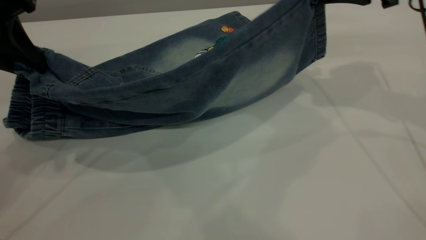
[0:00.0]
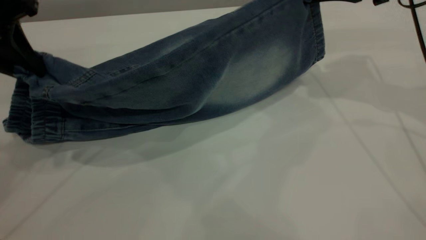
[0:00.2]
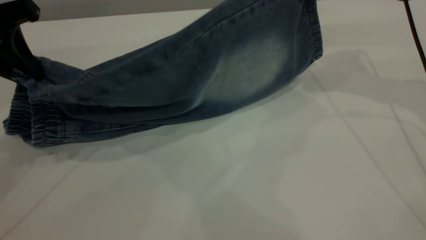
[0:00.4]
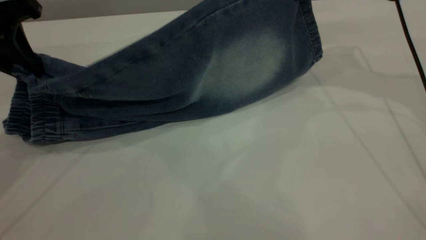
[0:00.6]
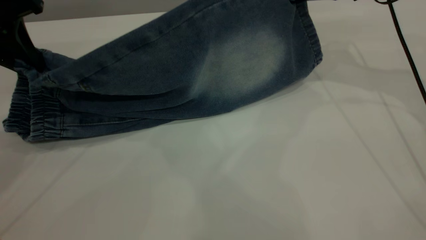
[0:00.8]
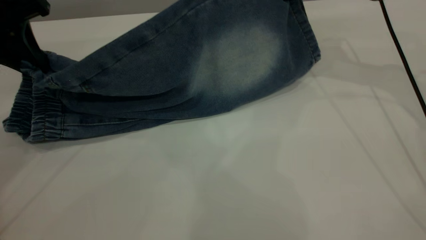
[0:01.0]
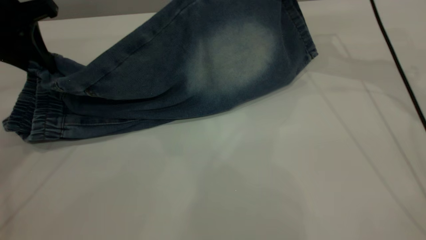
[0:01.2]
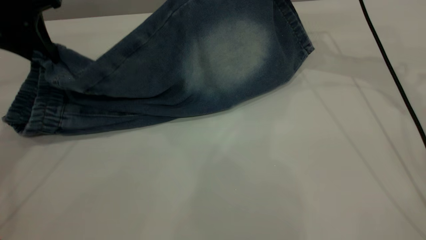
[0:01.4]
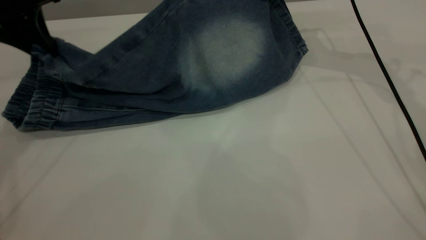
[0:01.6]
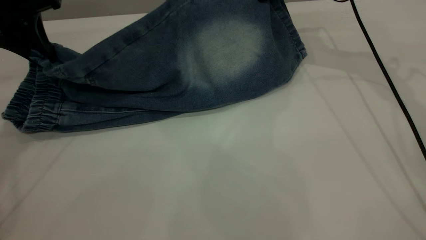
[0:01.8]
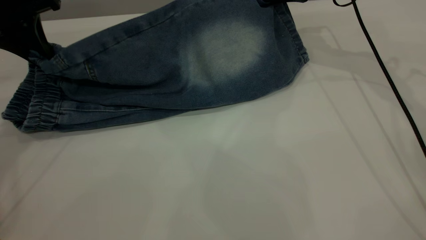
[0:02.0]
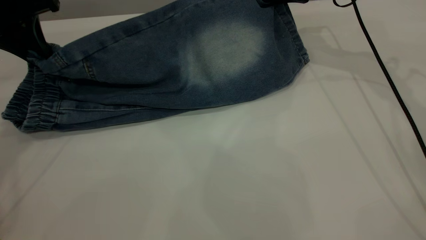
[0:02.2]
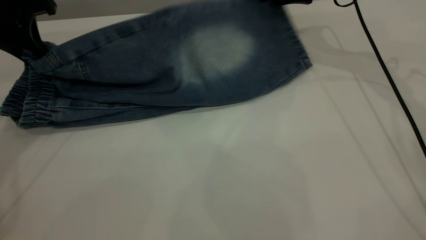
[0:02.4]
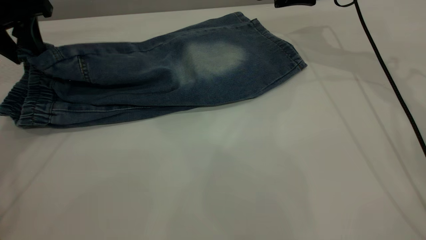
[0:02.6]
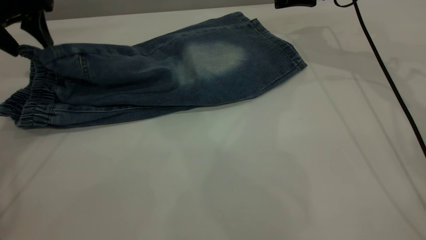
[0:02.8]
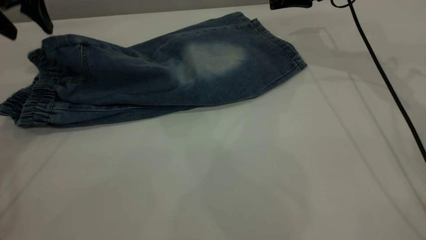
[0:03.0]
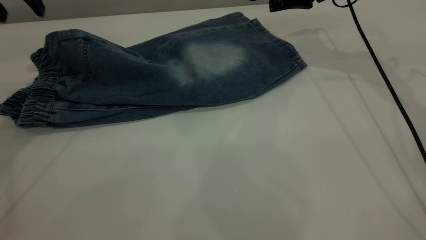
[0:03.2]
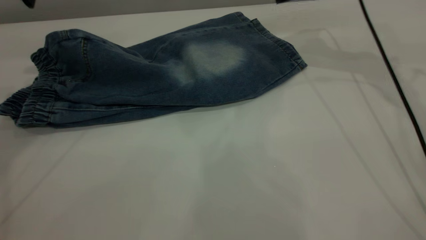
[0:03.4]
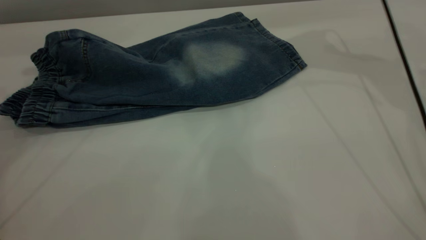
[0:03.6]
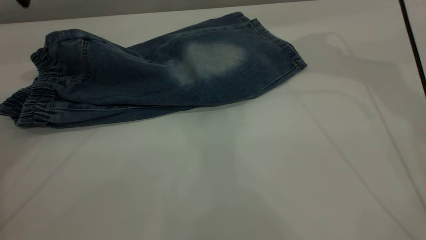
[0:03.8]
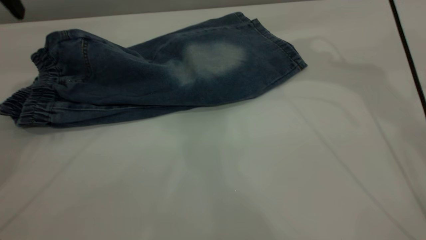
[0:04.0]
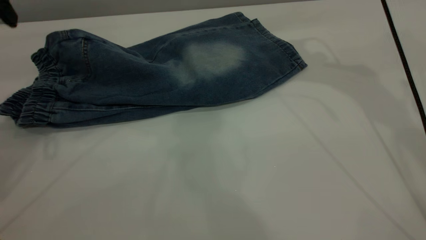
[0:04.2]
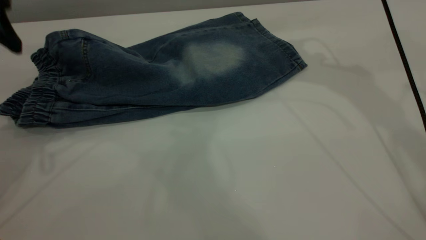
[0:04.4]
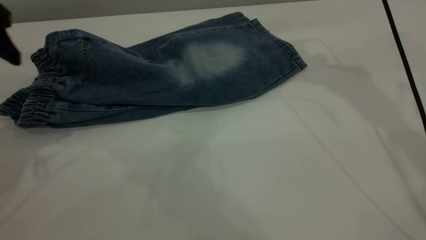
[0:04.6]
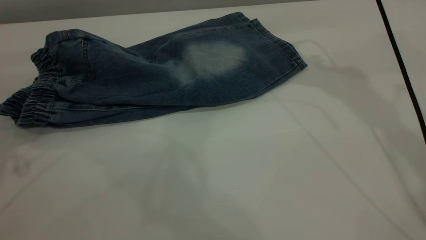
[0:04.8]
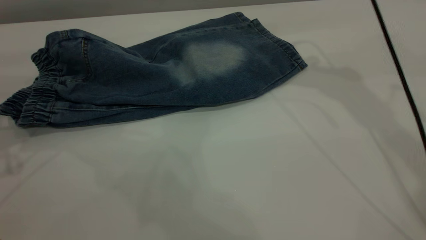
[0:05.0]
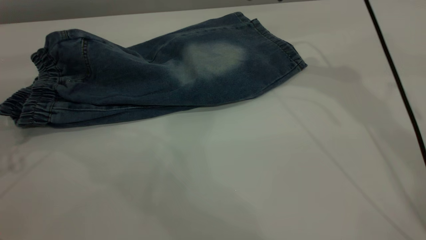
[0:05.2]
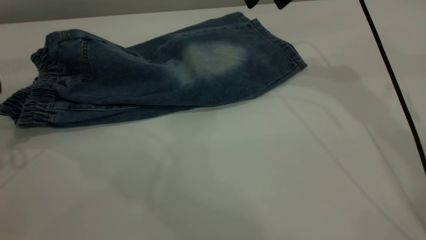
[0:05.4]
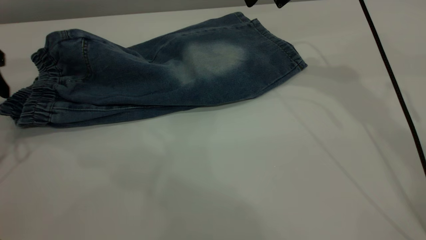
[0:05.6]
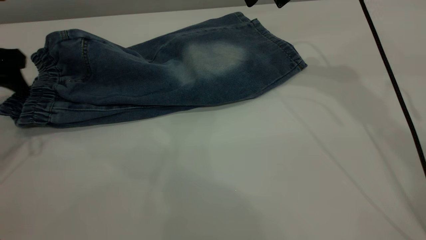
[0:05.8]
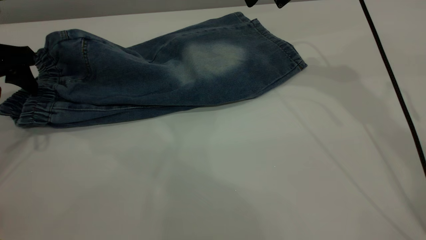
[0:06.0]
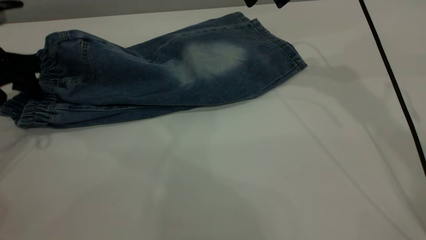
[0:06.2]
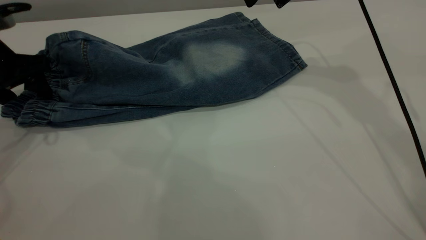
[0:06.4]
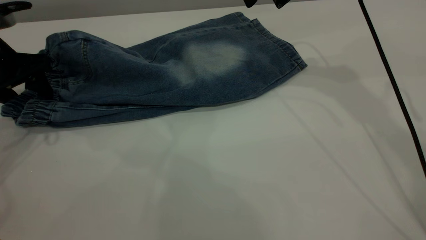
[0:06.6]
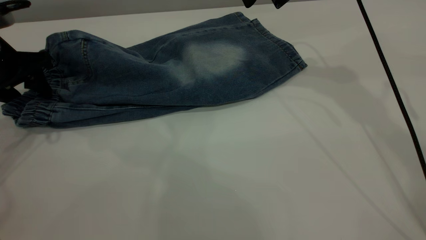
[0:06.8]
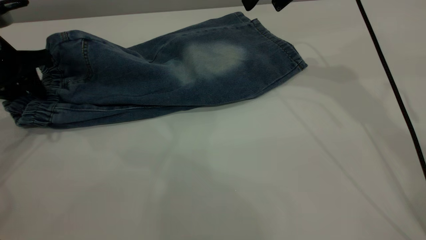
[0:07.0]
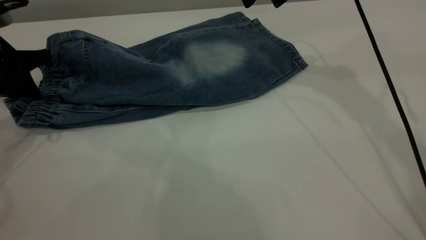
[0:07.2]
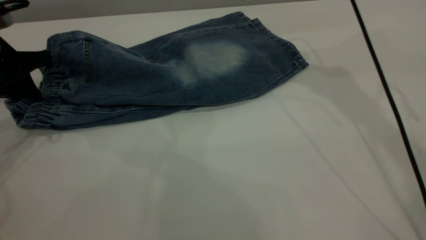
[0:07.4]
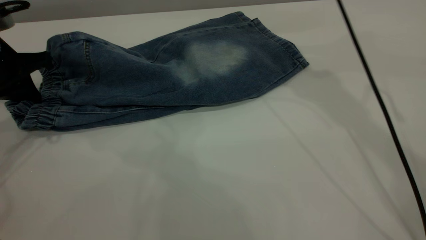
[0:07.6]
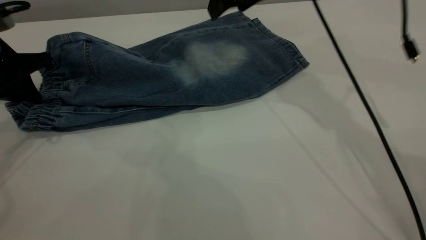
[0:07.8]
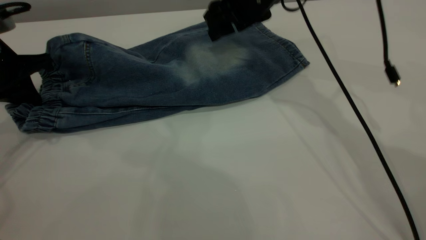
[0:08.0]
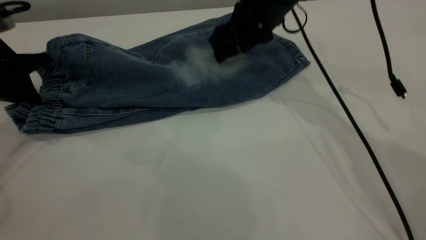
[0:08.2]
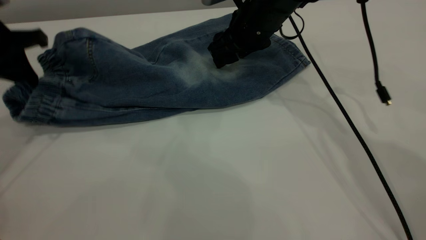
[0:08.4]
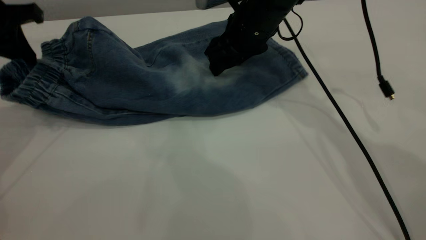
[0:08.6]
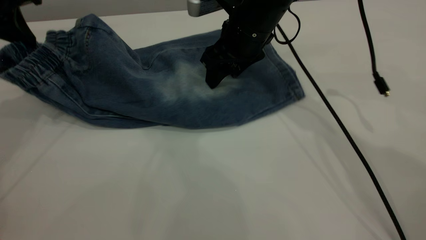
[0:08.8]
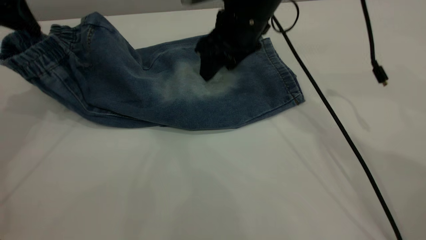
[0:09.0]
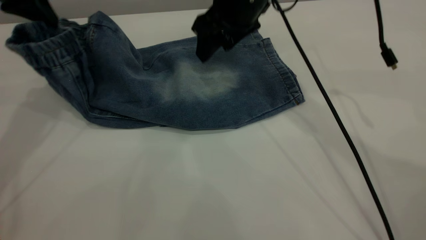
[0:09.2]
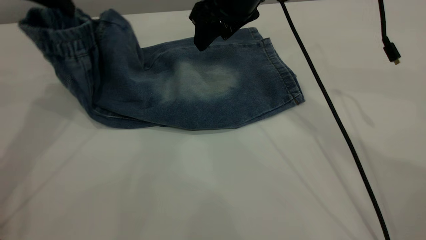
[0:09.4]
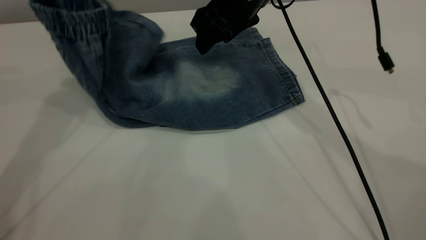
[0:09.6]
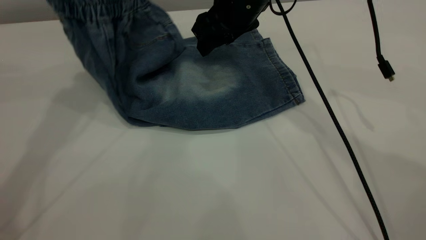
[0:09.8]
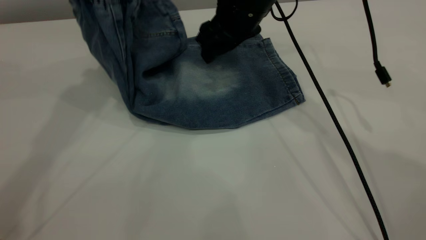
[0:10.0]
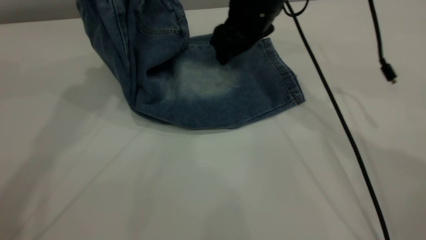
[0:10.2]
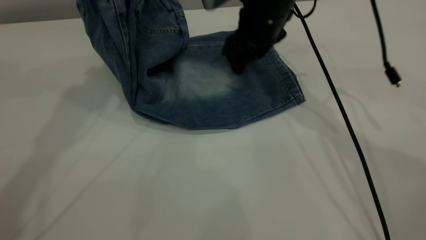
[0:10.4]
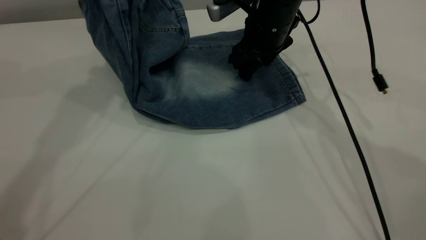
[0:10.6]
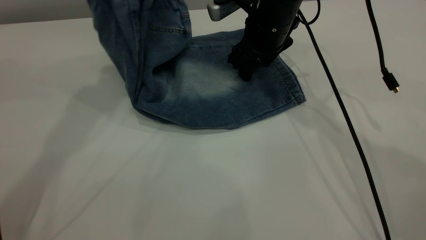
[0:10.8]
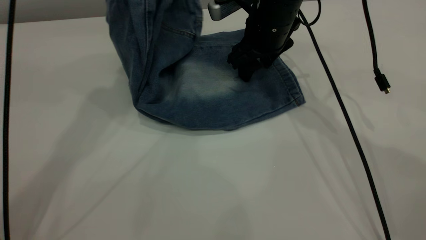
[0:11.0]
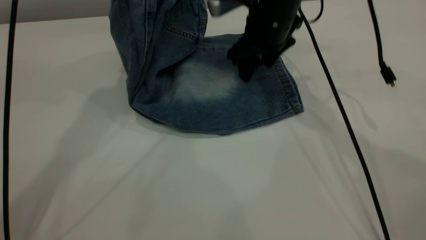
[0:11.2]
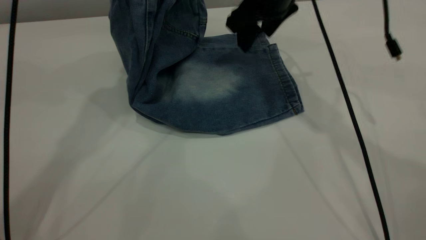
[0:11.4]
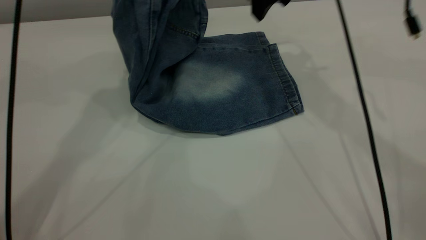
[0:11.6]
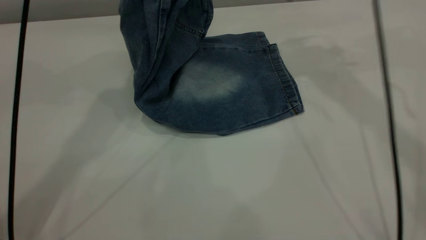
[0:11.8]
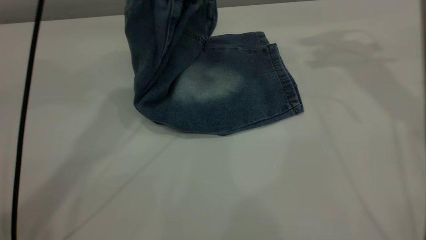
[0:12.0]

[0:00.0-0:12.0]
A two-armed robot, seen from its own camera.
Step, 0:00.0 to 0:03.6: Fold the bottom of the pants upward.
0:00.0 to 0:01.6: The left gripper heads forward, covering roughly 10 cm. Meanwhile the right gripper goes approximately 15 cm forward and to the left.
0:01.6 to 0:03.0: The left gripper opens up. Meanwhile the right gripper opens its fingers.
0:03.0 to 0:04.4: The left gripper shifts approximately 10 cm backward. Meanwhile the right gripper shifts some 10 cm upward and backward.
0:04.4 to 0:06.0: The left gripper goes about 10 cm downward.
0:06.0 to 0:07.6: The left gripper closes its fingers.
0:07.6 to 0:09.0: The right gripper moves downward, about 5 cm. Meanwhile the left gripper moves upward and forward, roughly 10 cm.
0:09.0 to 0:10.4: The left gripper goes approximately 15 cm to the right and upward.
0:10.4 to 0:12.0: The right gripper heads to the right and upward, covering about 20 cm. Meanwhile the left gripper travels to the right by about 10 cm.

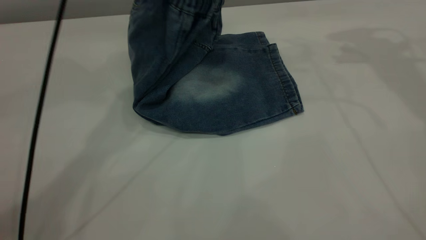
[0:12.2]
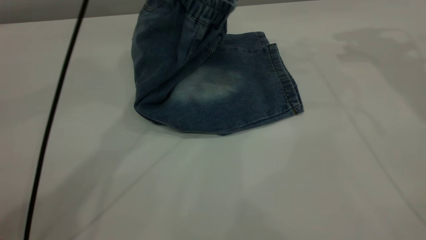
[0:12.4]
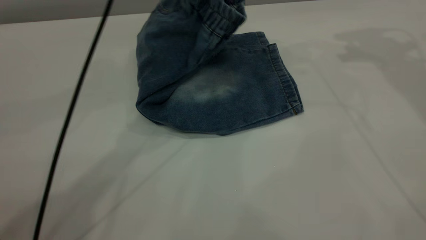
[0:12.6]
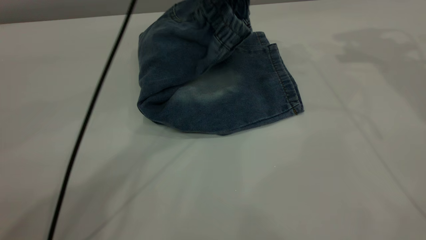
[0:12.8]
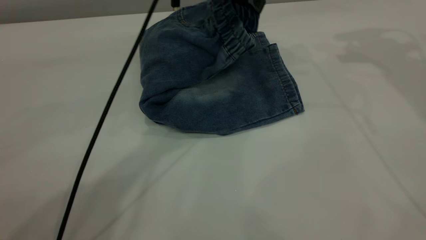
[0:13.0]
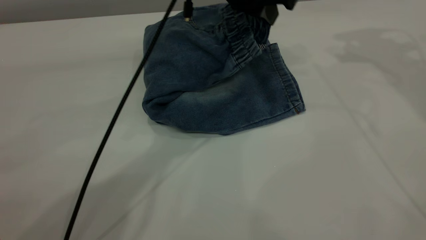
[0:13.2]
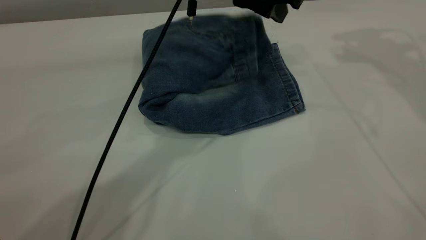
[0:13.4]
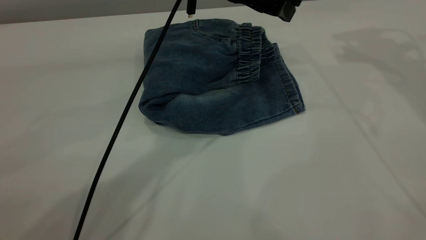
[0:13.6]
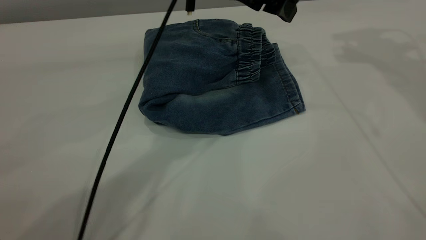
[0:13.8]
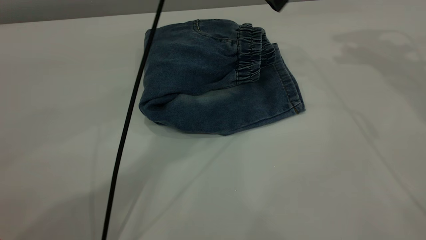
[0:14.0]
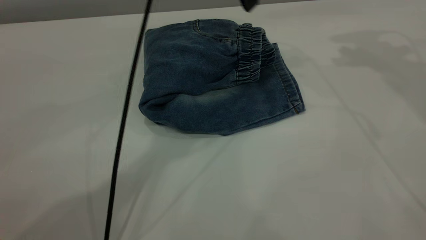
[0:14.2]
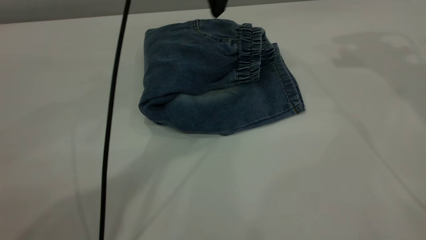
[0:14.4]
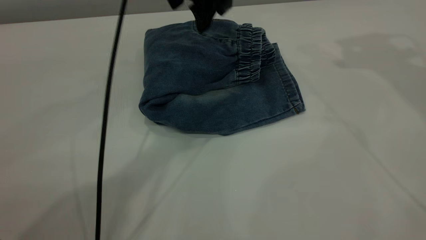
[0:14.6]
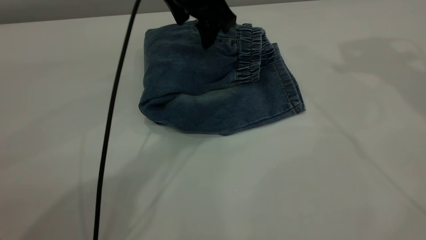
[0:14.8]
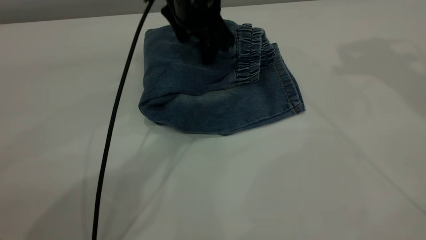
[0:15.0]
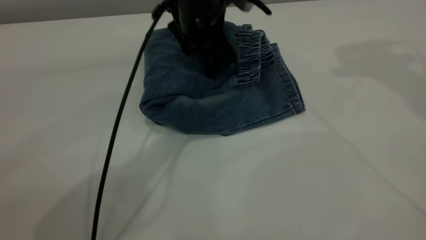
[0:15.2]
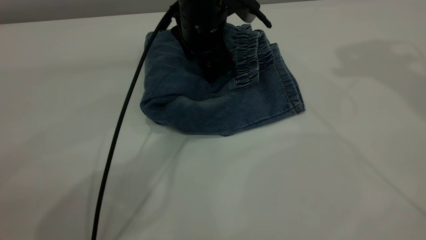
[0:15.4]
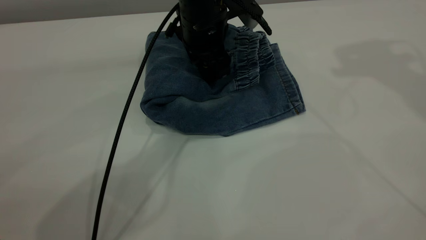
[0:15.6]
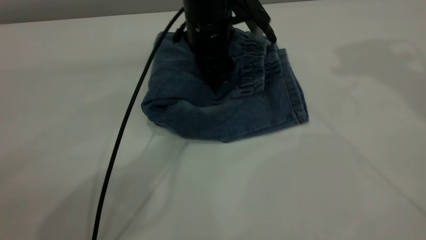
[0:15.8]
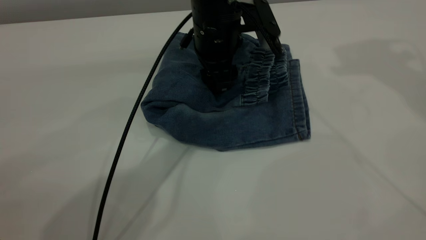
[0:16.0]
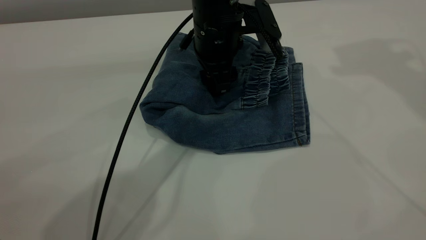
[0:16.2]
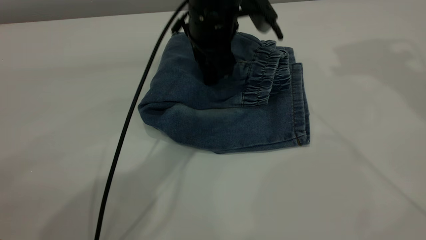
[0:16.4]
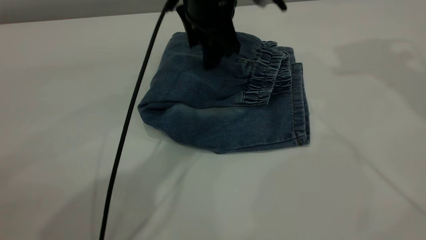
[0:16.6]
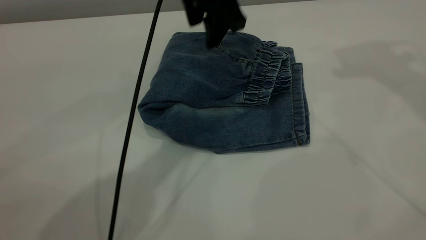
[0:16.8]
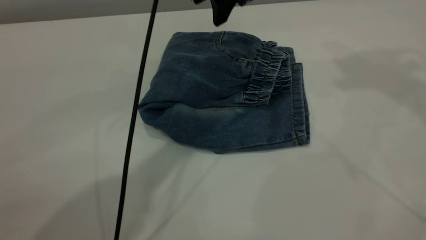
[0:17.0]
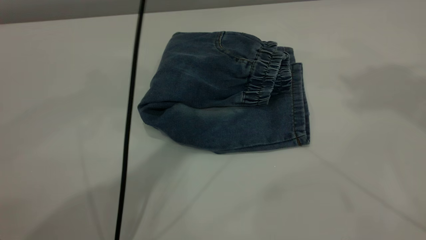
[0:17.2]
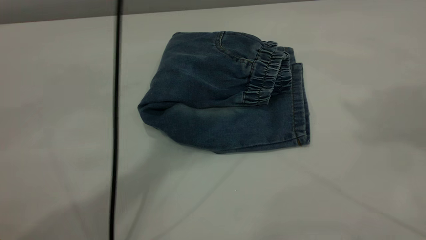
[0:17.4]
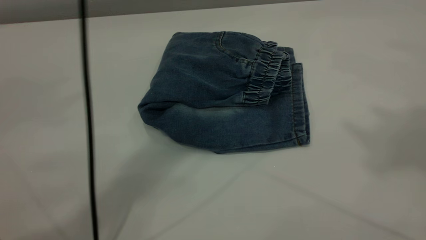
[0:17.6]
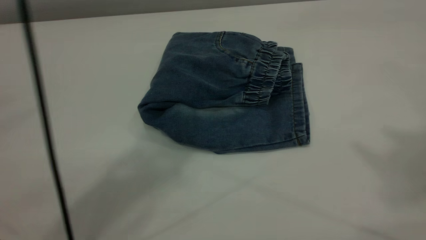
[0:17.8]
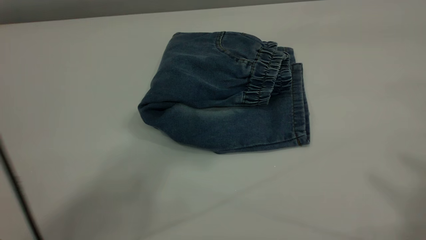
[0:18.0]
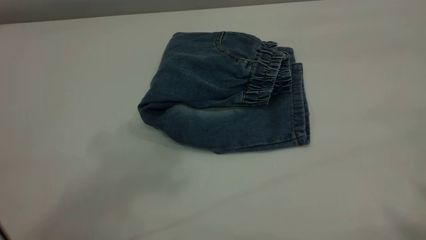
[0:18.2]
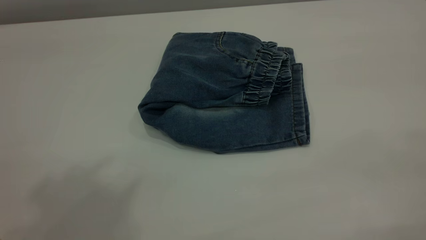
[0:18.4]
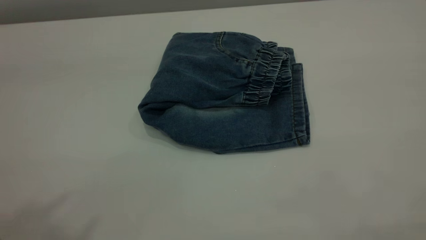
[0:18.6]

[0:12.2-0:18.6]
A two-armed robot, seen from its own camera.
Step, 0:12.2 to 0:14.2: Fold the pants from left to right.
0:12.2 to 0:13.8: The left gripper shifts roughly 10 cm to the right and downward, and opens.
0:13.8 to 0:15.4: The right gripper goes roughly 10 cm upward, while the left gripper moves downward, approximately 10 cm.
0:15.4 to 0:17.0: The left gripper moves upward, approximately 10 cm; the right gripper moves upward, about 5 cm.
0:17.0 to 0:18.6: The right gripper is displaced backward by about 35 cm; the left gripper shifts roughly 50 cm backward, upward and to the left.
